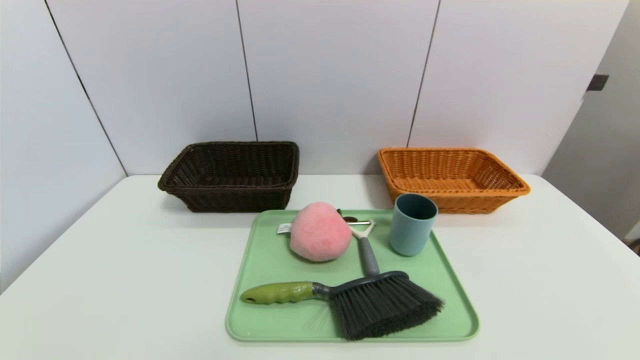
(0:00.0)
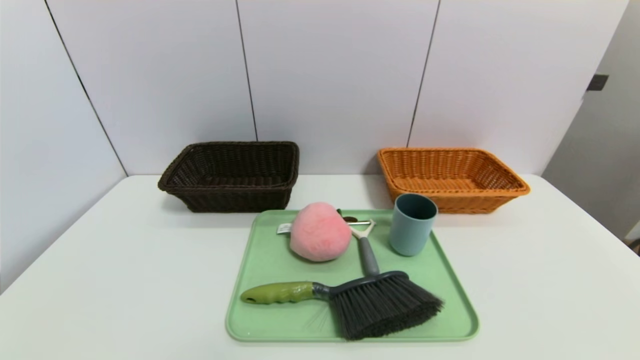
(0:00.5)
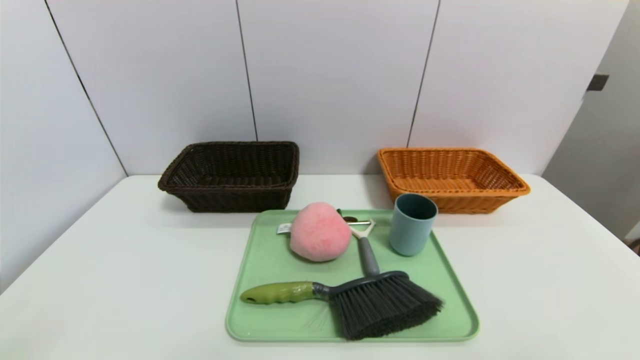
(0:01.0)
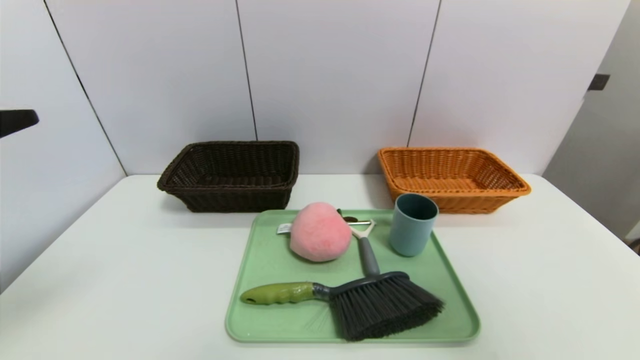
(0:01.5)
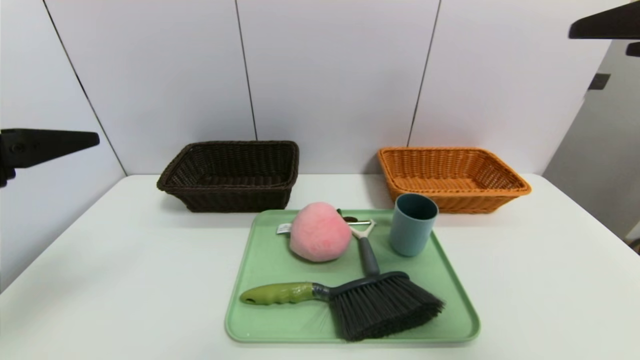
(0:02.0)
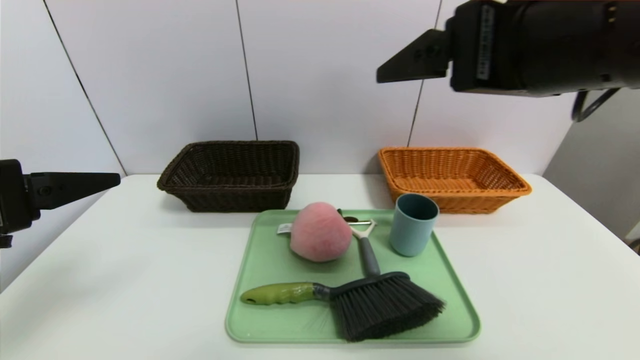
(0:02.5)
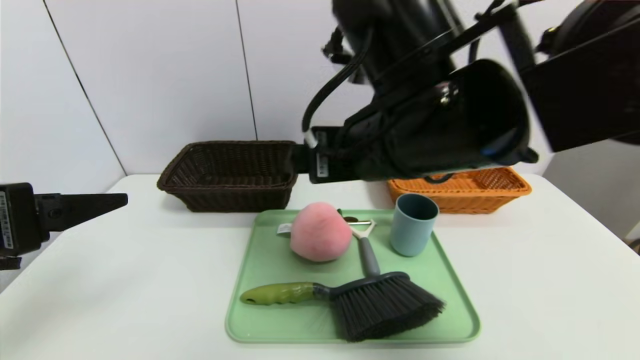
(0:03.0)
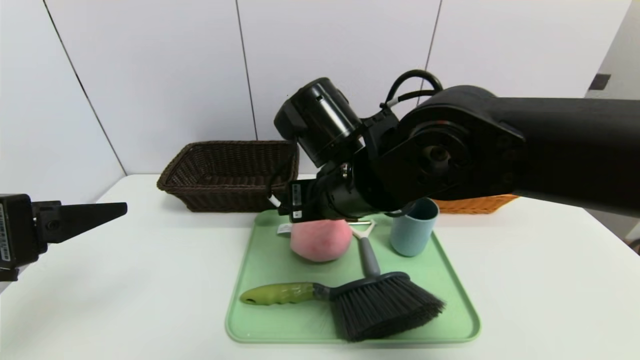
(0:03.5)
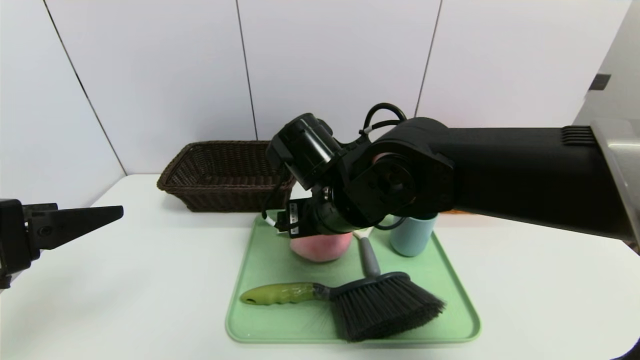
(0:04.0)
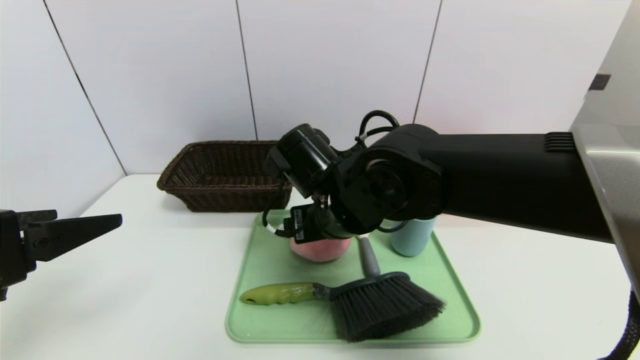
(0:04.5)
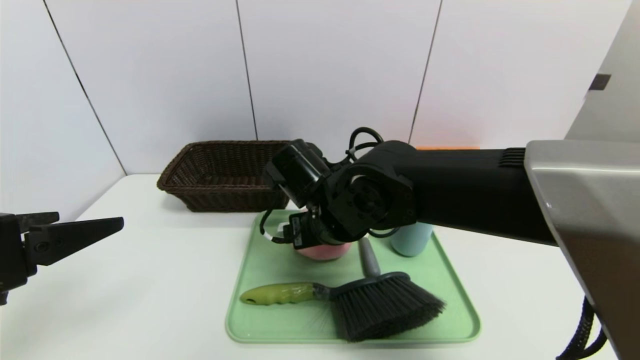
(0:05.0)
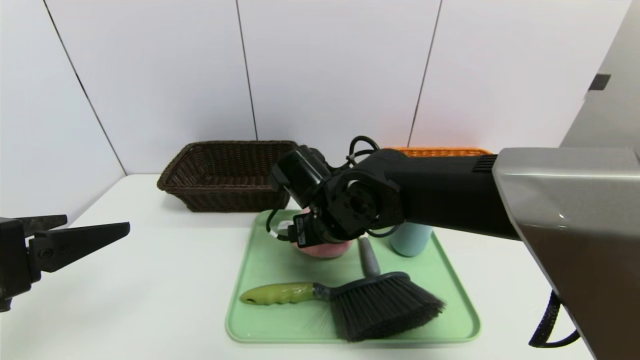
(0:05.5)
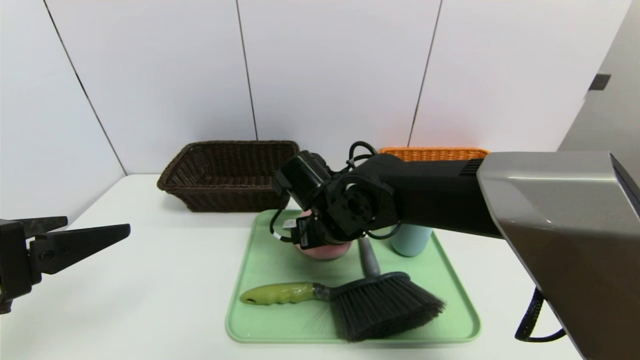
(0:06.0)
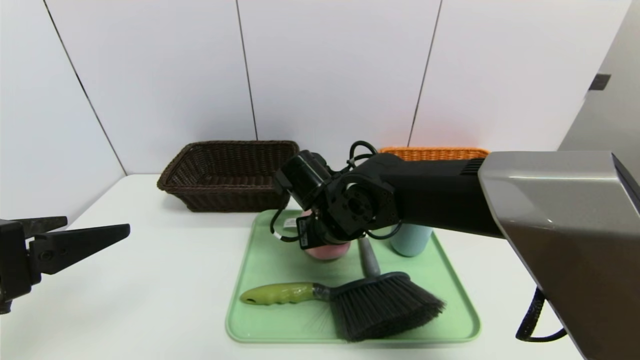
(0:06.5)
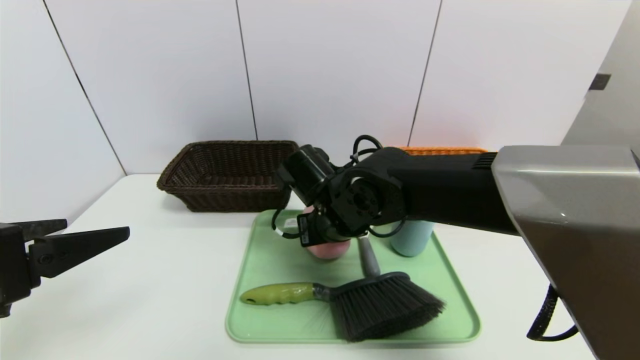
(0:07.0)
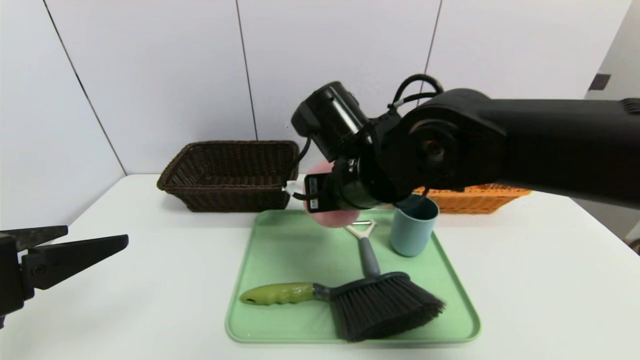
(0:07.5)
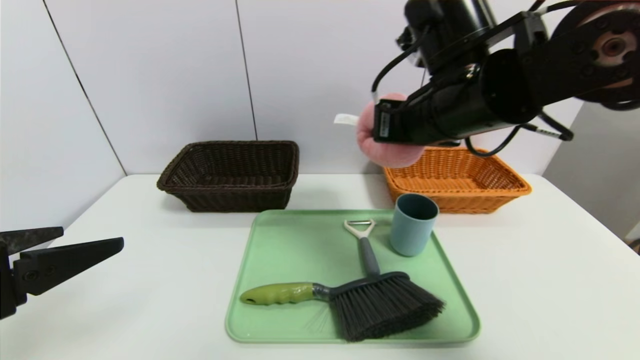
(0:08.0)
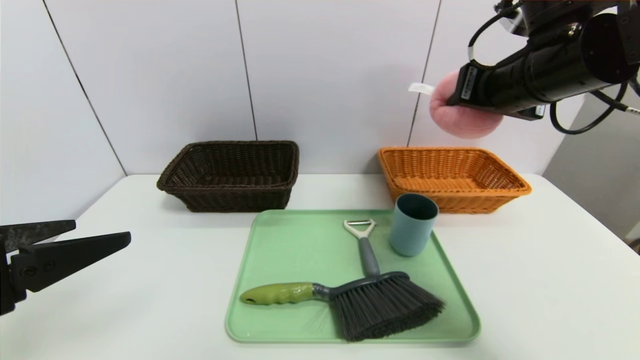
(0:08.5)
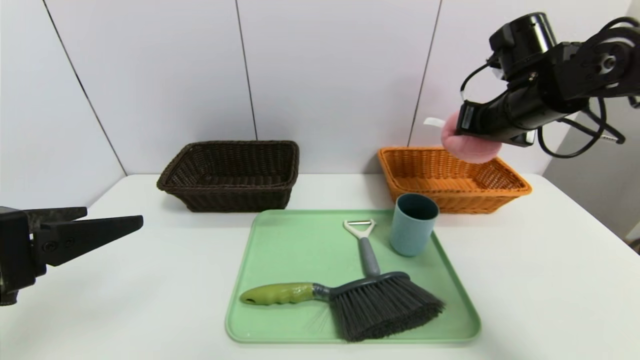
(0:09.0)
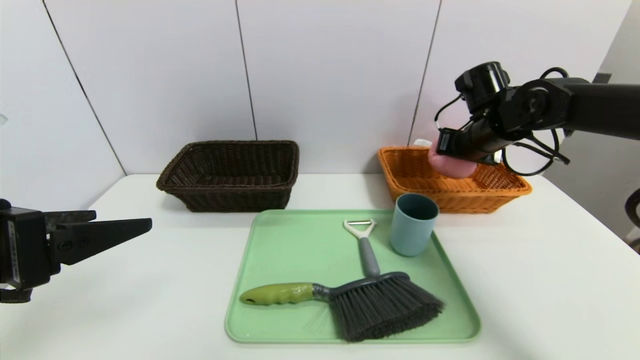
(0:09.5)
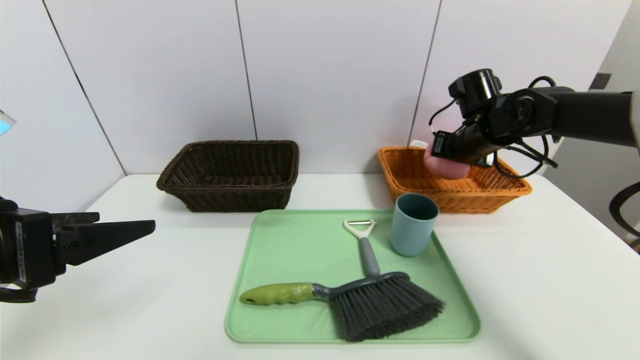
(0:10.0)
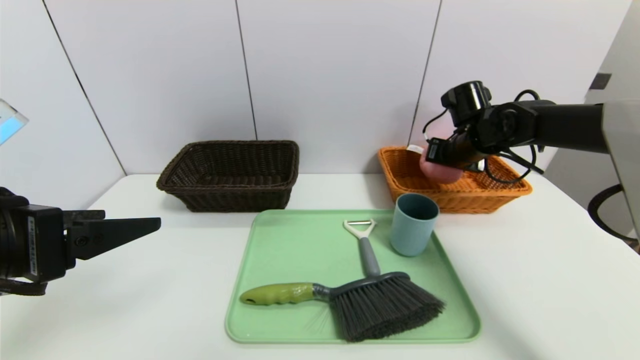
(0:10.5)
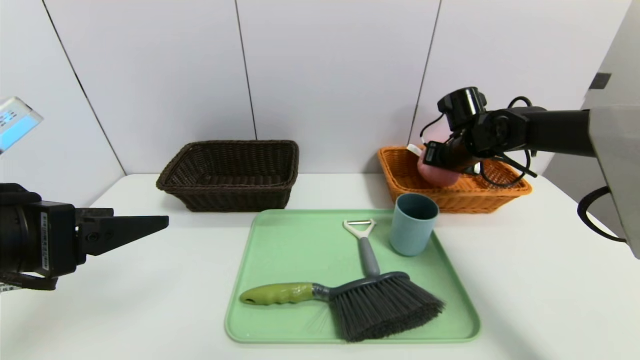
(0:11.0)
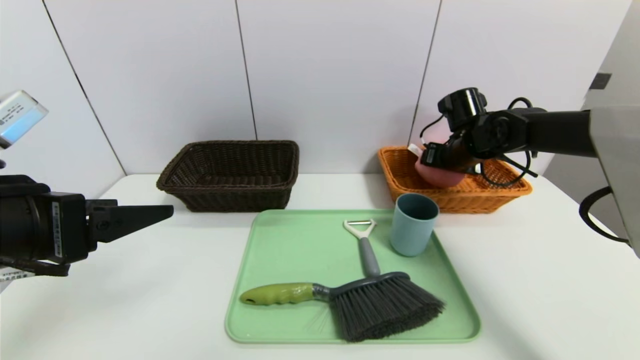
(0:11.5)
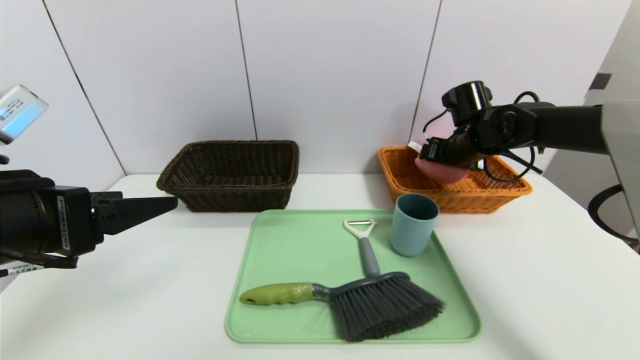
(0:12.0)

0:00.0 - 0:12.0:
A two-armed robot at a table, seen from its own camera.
Task of the whole recording: place the food in the right basket with the right gripper, and place the non food items in the left basket with the left gripper.
0:00.0 - 0:02.0: The two grippers go some 30 cm upward and forward.
0:02.0 - 0:04.0: The right gripper goes about 35 cm to the left, downward and forward.
0:04.0 - 0:06.0: The right gripper is displaced downward by some 5 cm.
0:06.0 - 0:08.0: The right gripper goes roughly 20 cm upward and to the right, and closes.
0:08.0 - 0:10.0: The right gripper is displaced forward, to the right and downward by approximately 20 cm.
0:10.0 - 0:12.0: The right gripper opens.

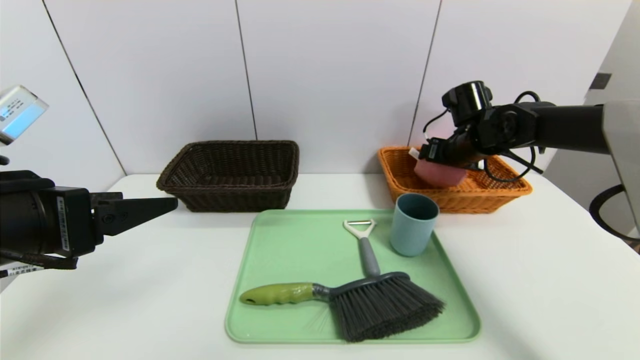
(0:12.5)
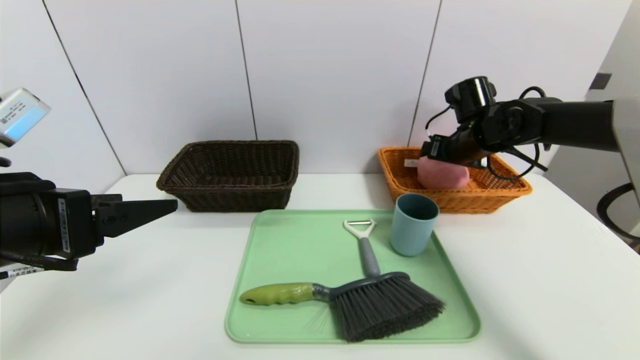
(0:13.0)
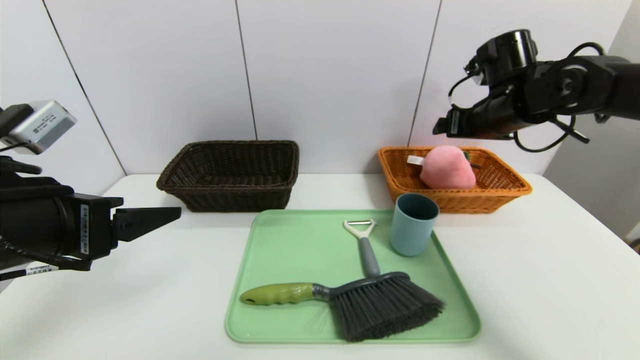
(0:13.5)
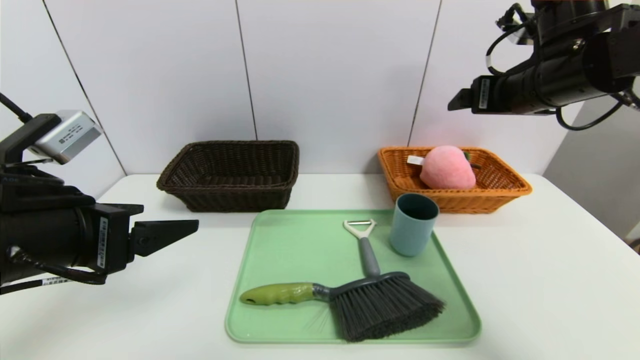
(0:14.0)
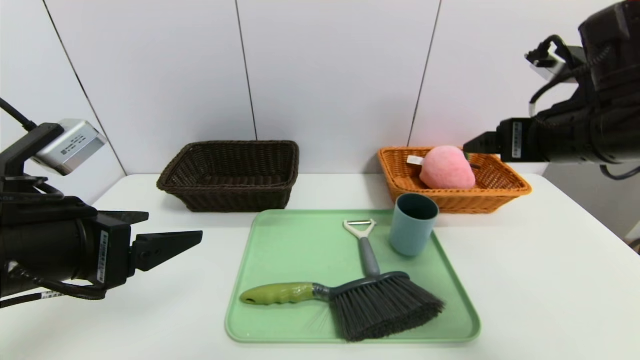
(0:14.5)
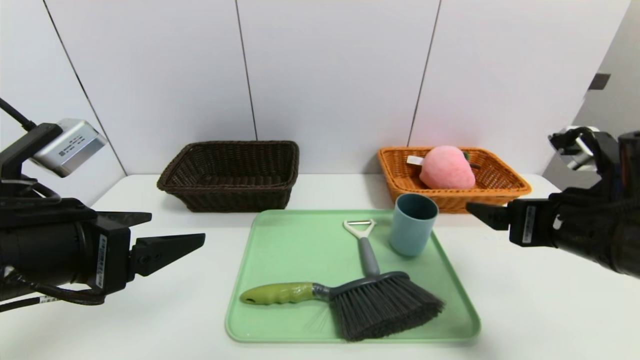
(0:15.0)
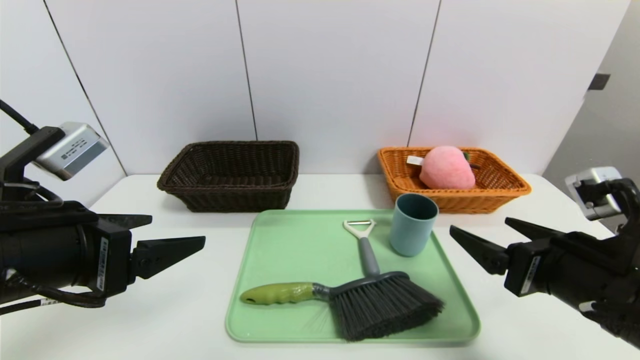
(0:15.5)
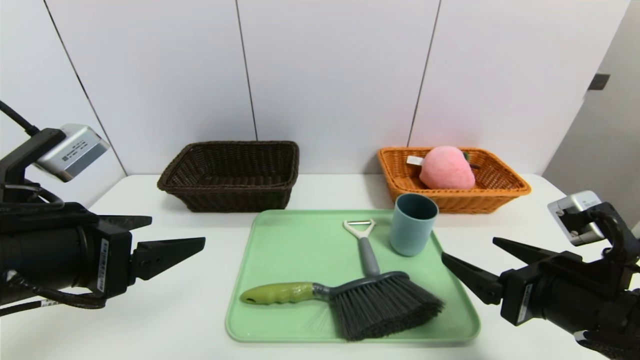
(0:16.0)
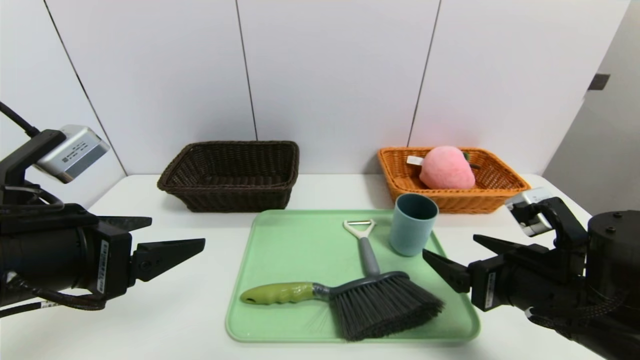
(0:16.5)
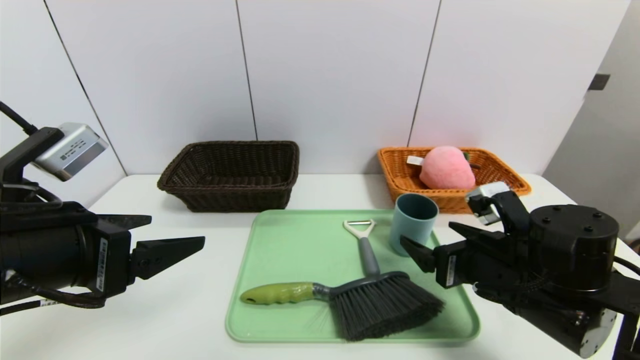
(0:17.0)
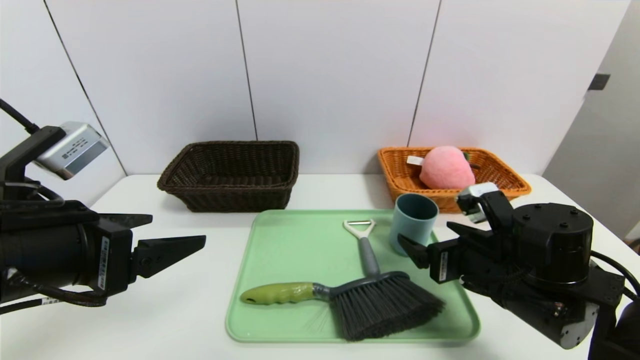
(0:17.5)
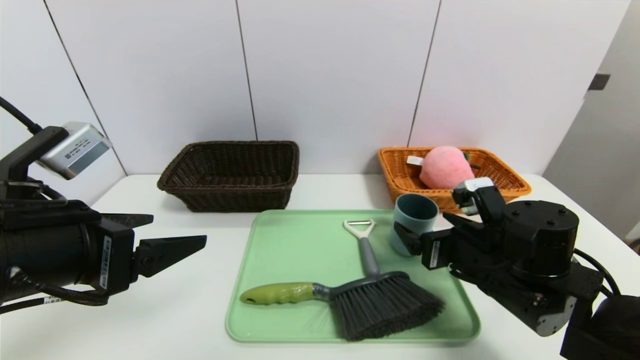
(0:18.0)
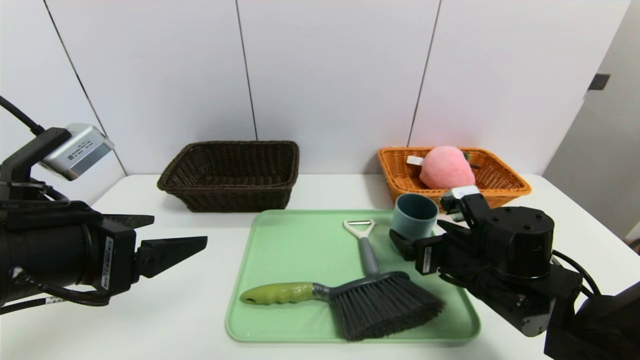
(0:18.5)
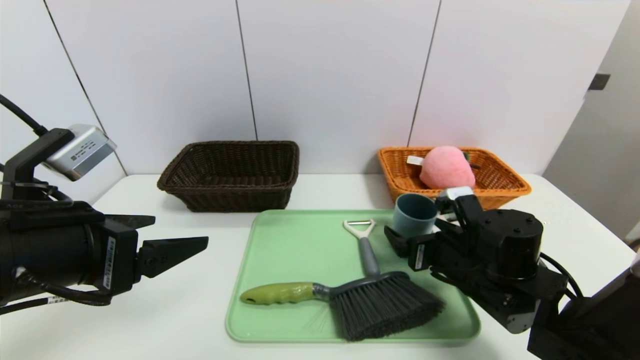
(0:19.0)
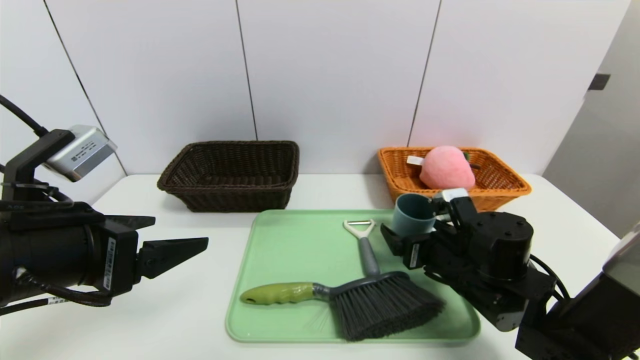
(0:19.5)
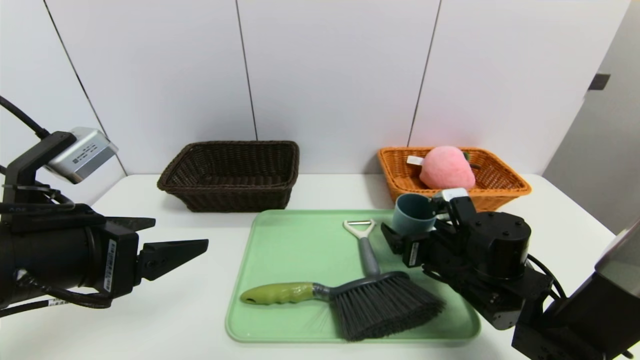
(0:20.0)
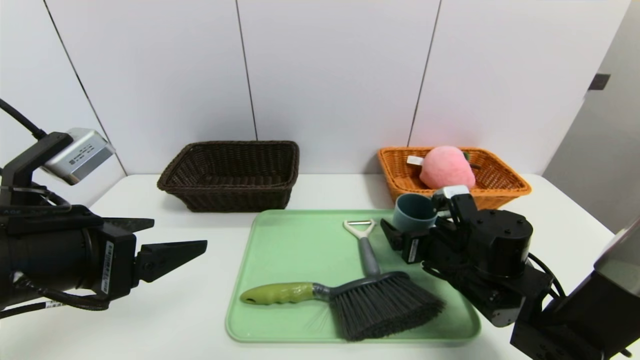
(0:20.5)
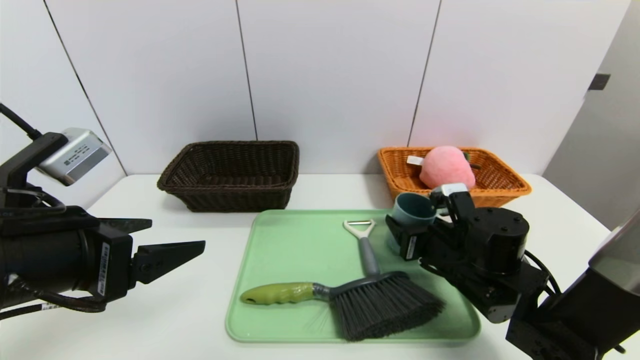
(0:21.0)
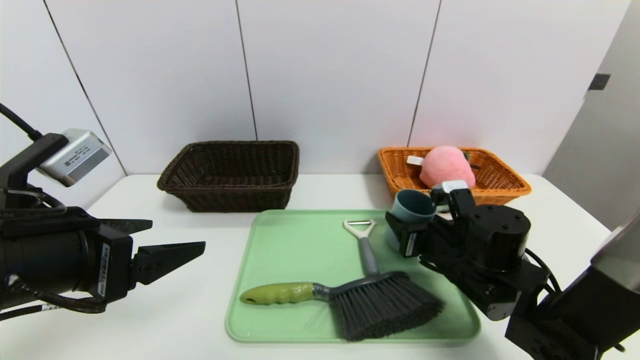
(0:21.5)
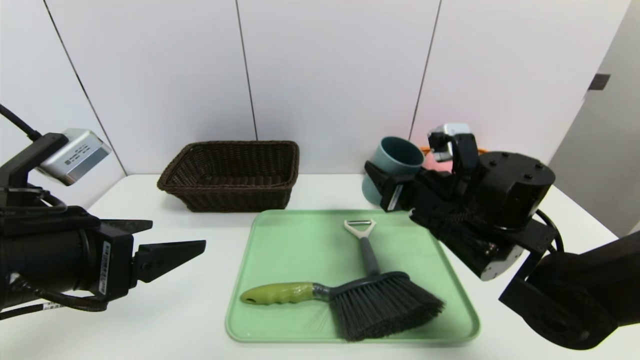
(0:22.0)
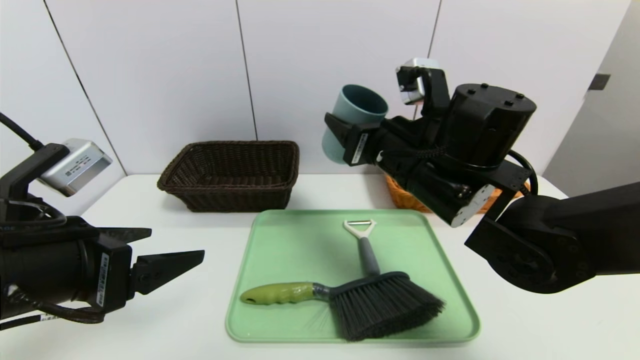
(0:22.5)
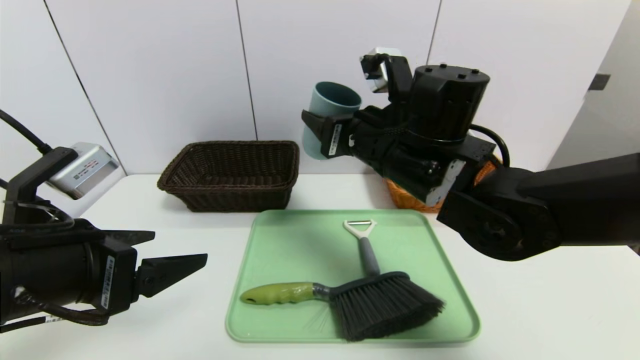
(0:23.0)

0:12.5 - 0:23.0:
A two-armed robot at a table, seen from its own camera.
Task of the whole recording: place the food in the right basket with the right gripper, and place the non food items in the left basket with the left gripper.
0:12.5 - 0:14.5: The right gripper shifts some 20 cm backward and upward.
0:14.5 - 0:16.5: The right gripper heads downward and backward, covering roughly 15 cm.
0:16.5 - 0:19.0: The right gripper is displaced forward and downward by about 10 cm.
0:19.0 - 0:21.0: The right gripper closes.
0:21.0 - 0:23.0: The right gripper heads upward and to the left, covering approximately 20 cm.
